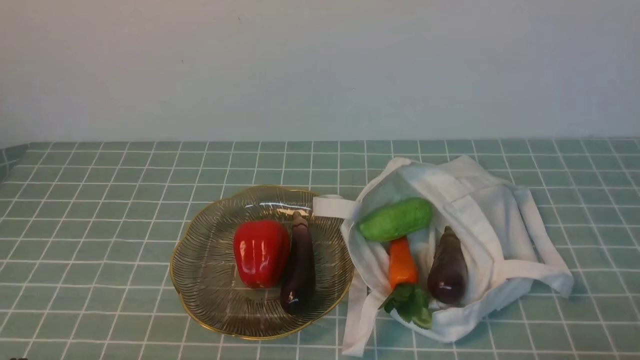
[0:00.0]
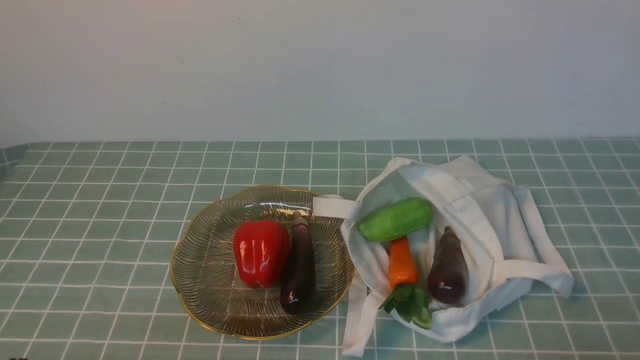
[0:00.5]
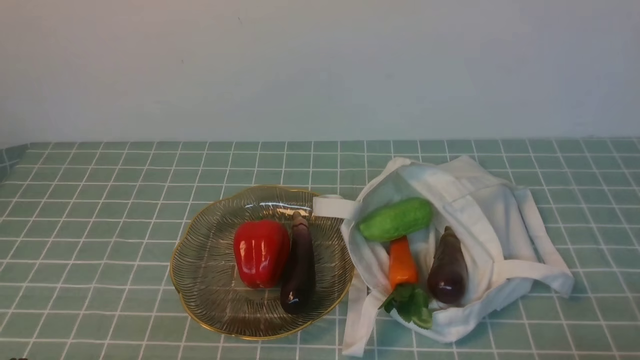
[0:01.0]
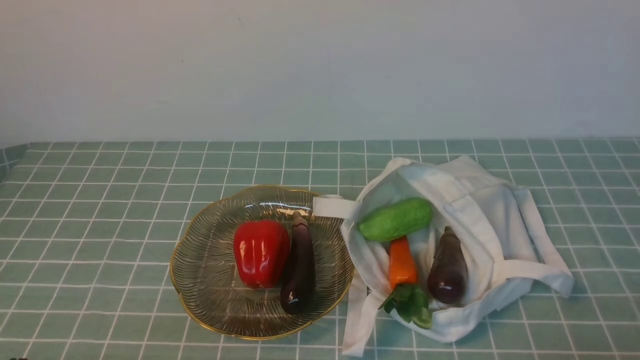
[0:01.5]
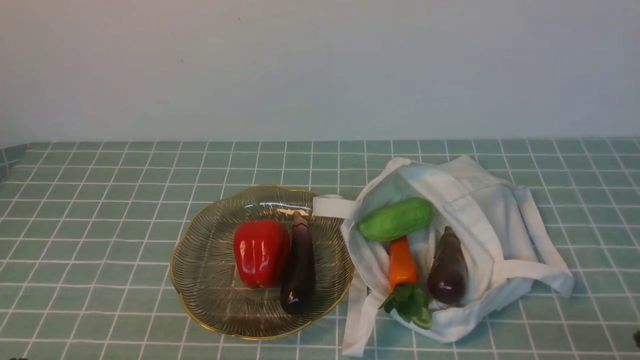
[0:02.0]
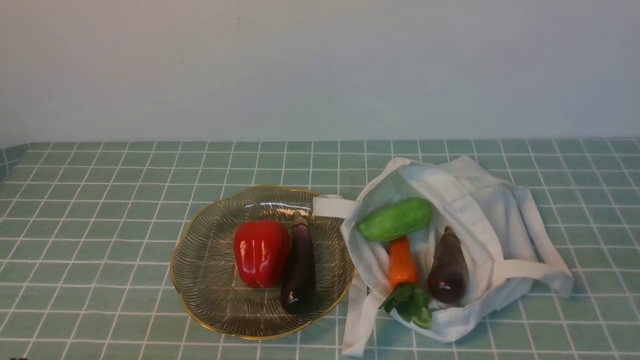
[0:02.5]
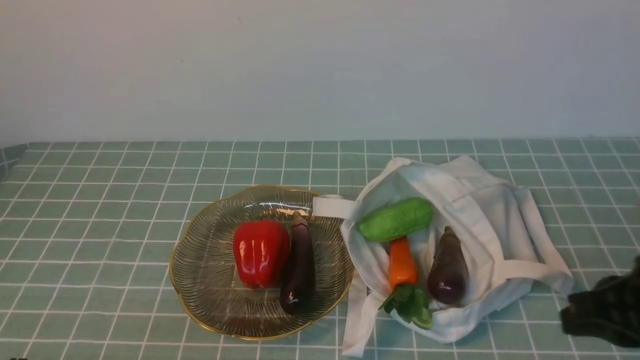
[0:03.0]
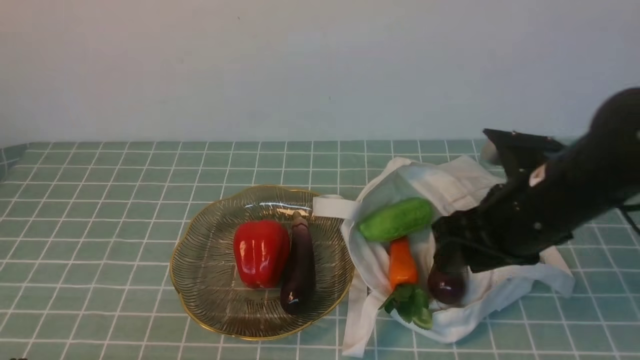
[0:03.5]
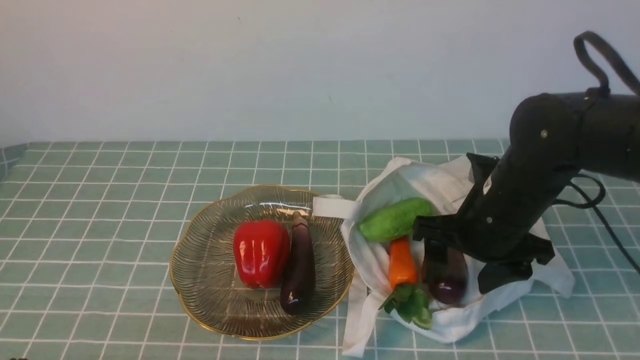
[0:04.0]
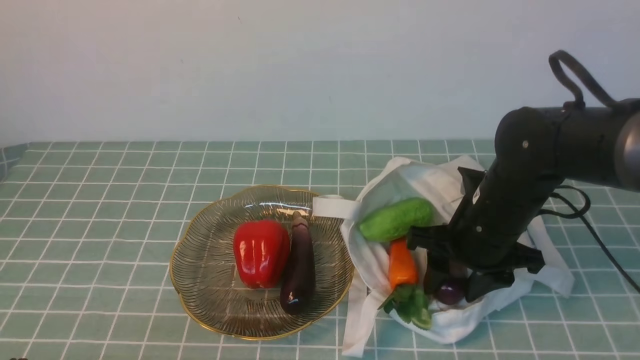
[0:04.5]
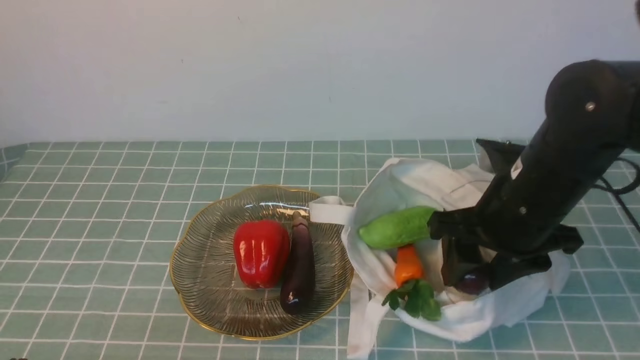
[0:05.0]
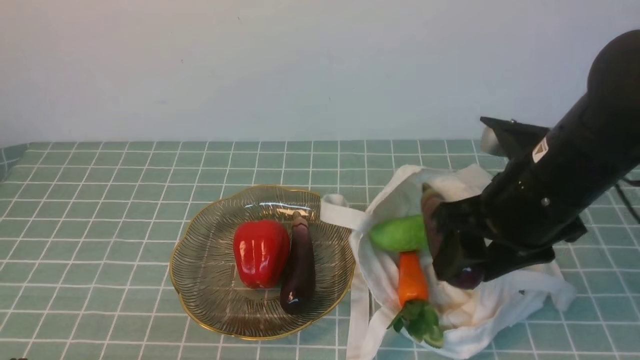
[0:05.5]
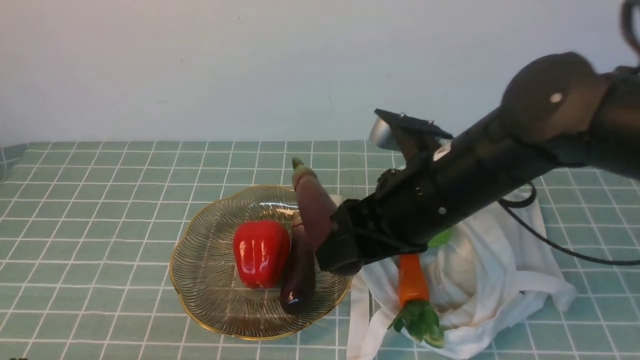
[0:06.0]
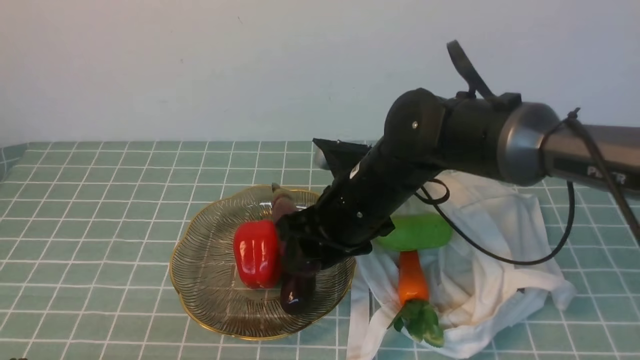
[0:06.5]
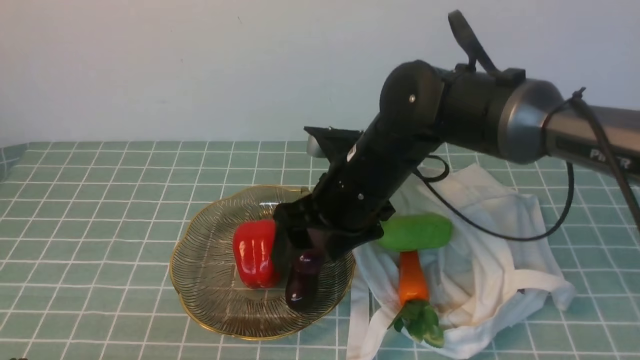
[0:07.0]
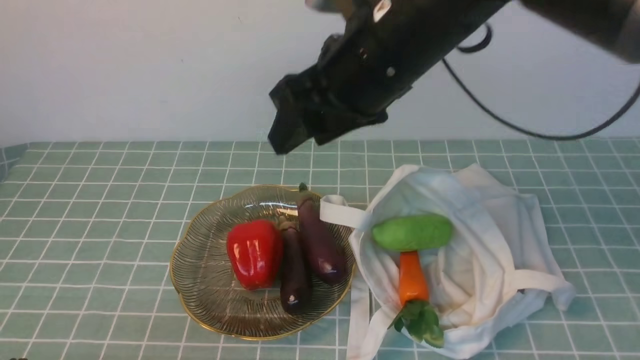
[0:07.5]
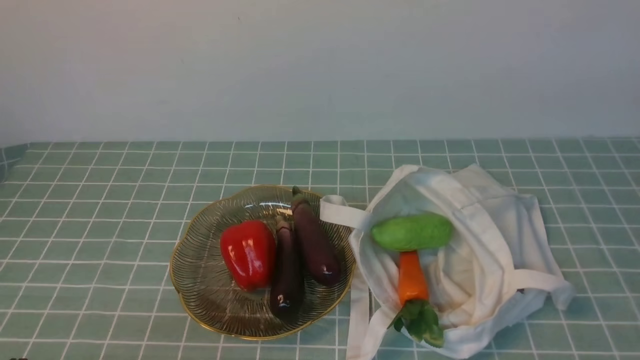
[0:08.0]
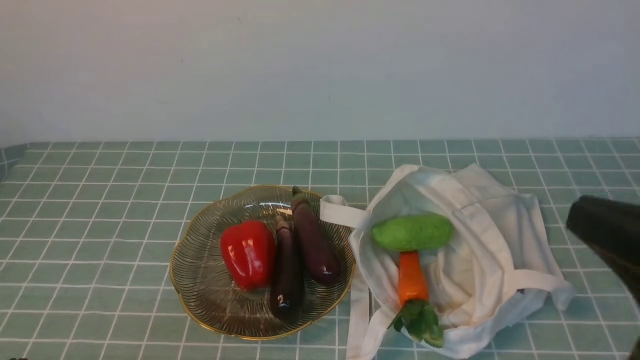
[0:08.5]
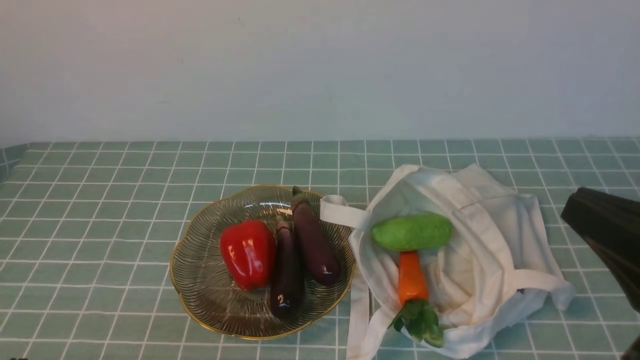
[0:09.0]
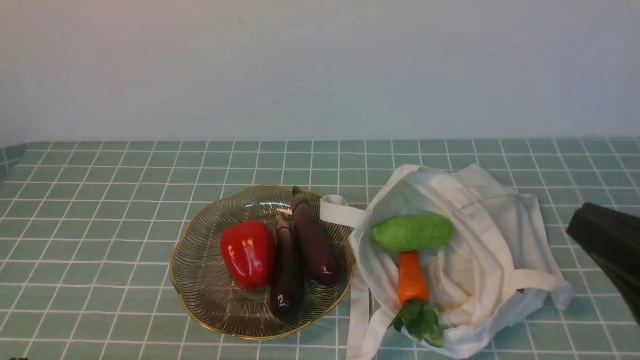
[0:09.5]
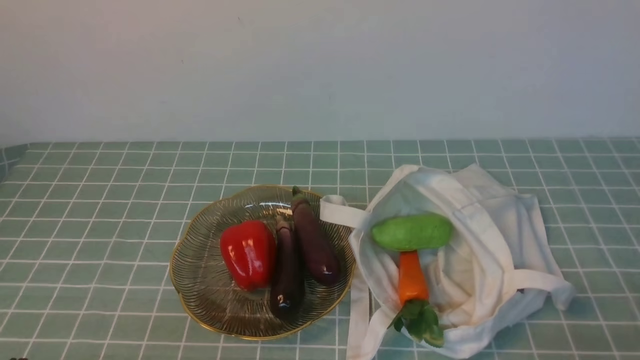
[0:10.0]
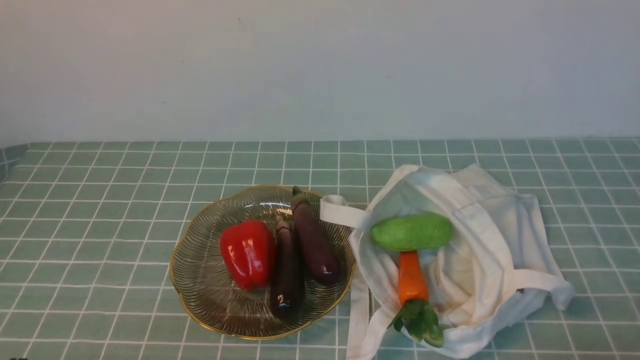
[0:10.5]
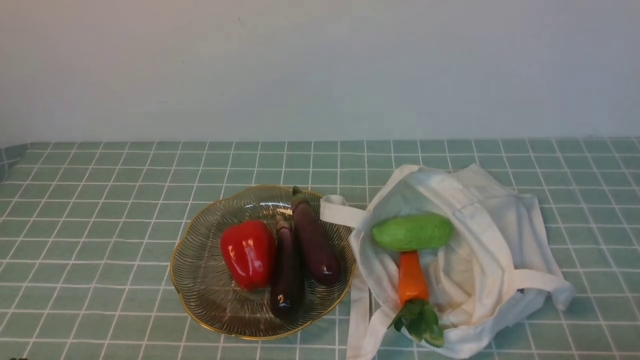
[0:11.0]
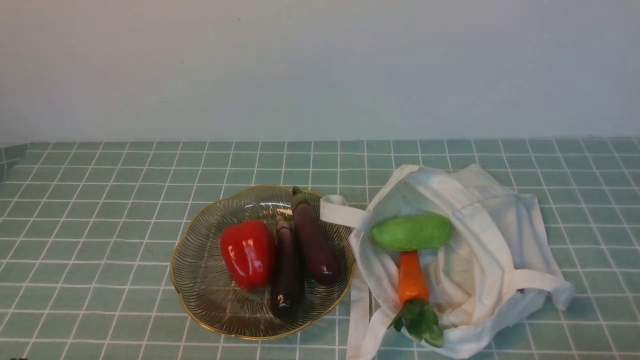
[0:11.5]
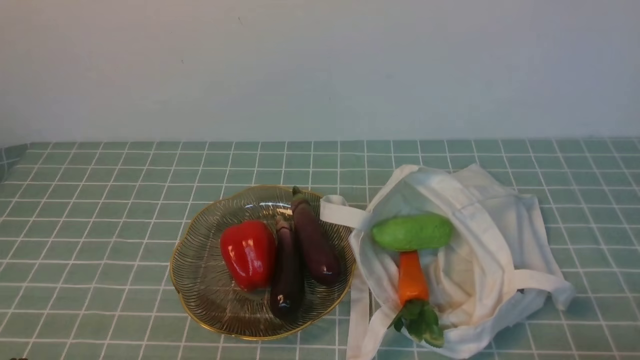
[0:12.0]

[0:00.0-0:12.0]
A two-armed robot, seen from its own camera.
Task of the whole recording: take vegetables from cloth bag on blue coffee tablecloth place on plate.
Step, 0:00.0 to 0:04.5: Grasp the eggplant with right gripper.
Step, 0:05.0 to 0:07.5: Place the eggplant on the plate with right gripper.
0:02.0 to 0:04.0: The right gripper travels forward and to the left by roughly 30 cm, and opens.
0:04.0 to 0:06.0: The right gripper heads to the left and upward, covering approximately 10 cm.
0:06.0 to 0:08.0: The right gripper is displaced upward by some 20 cm, and closes its fingers.
